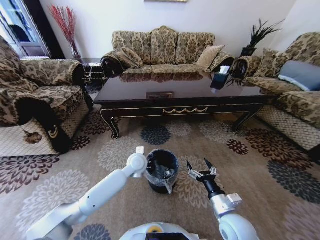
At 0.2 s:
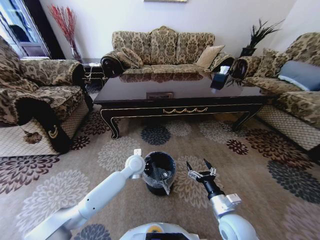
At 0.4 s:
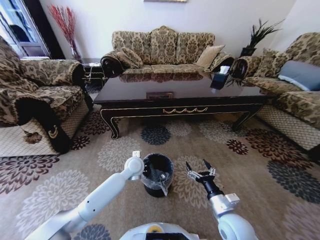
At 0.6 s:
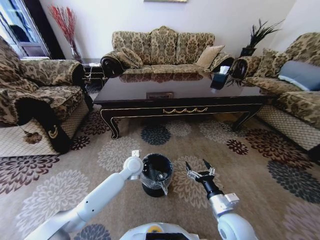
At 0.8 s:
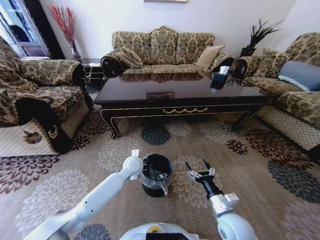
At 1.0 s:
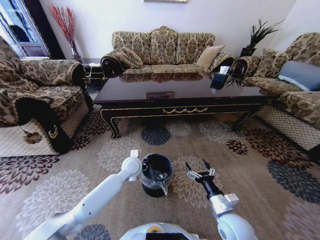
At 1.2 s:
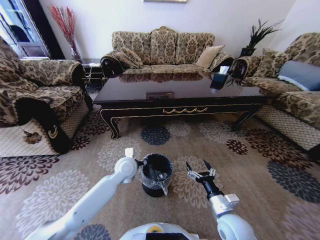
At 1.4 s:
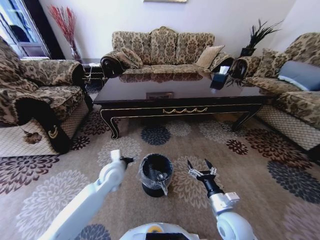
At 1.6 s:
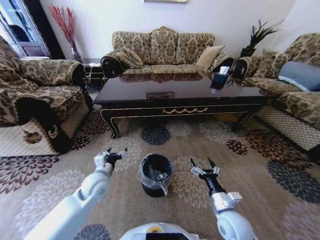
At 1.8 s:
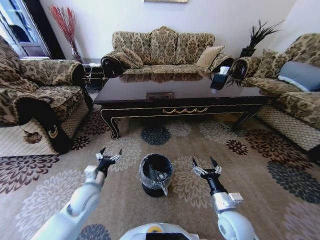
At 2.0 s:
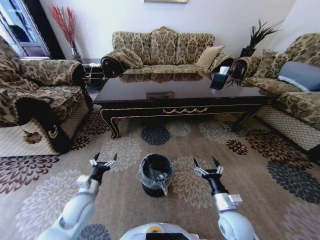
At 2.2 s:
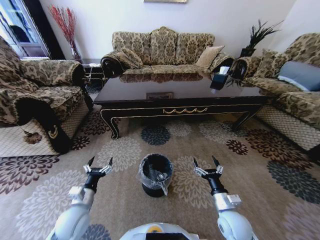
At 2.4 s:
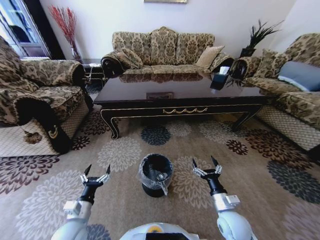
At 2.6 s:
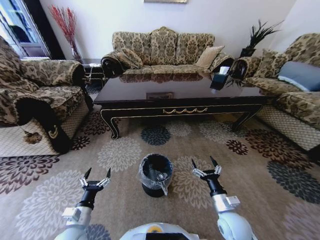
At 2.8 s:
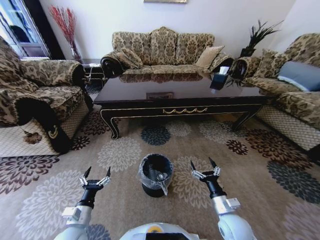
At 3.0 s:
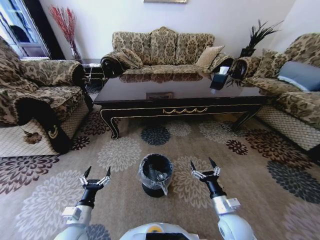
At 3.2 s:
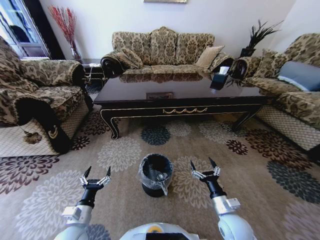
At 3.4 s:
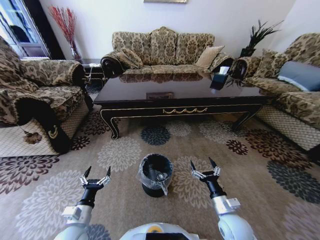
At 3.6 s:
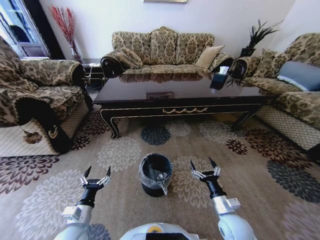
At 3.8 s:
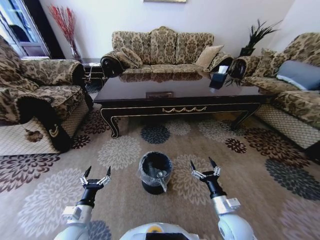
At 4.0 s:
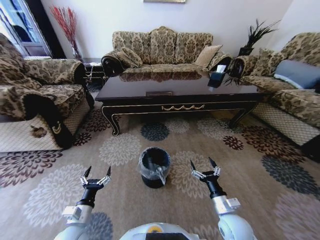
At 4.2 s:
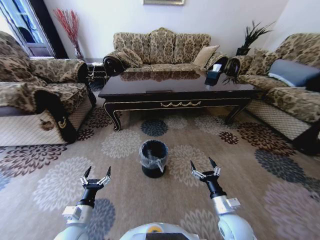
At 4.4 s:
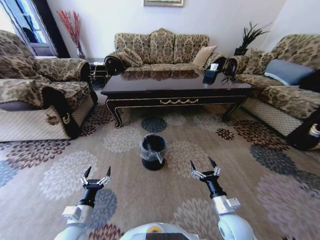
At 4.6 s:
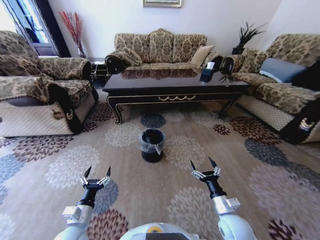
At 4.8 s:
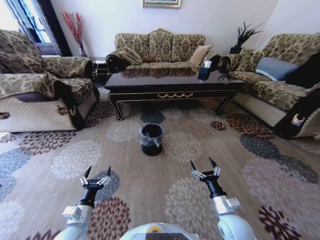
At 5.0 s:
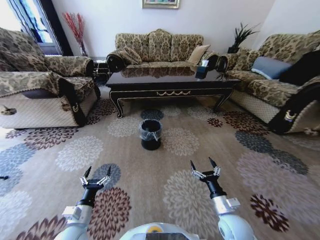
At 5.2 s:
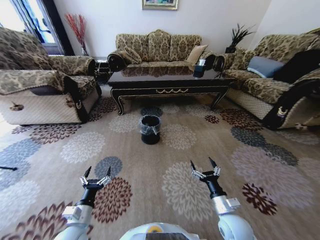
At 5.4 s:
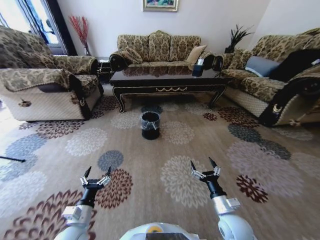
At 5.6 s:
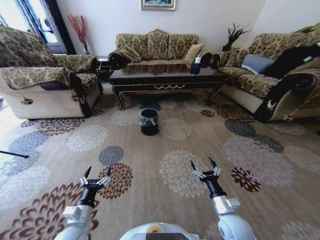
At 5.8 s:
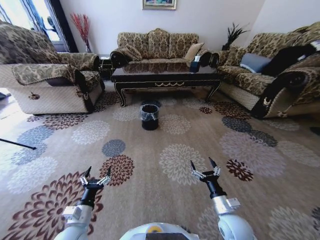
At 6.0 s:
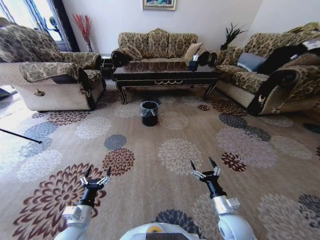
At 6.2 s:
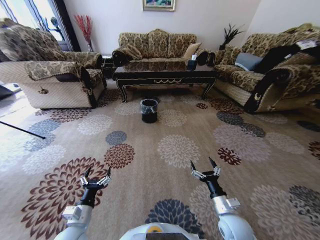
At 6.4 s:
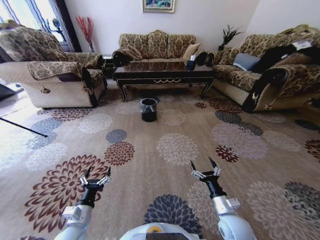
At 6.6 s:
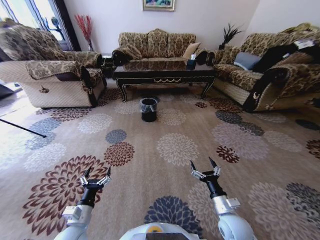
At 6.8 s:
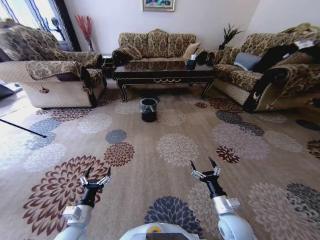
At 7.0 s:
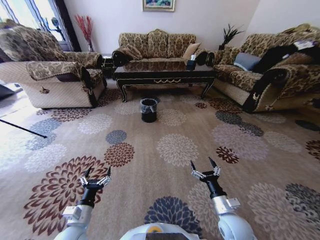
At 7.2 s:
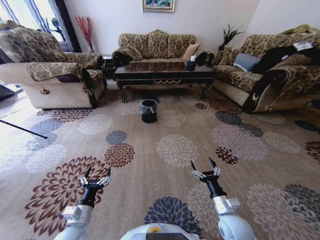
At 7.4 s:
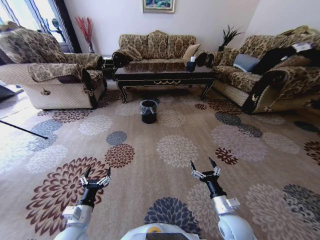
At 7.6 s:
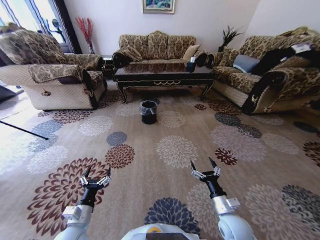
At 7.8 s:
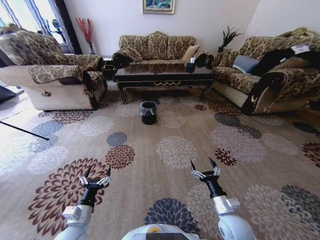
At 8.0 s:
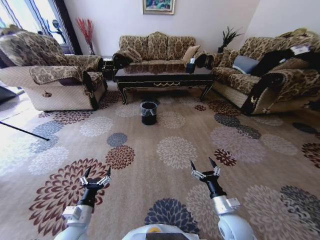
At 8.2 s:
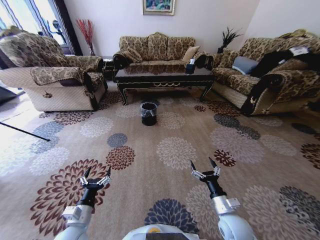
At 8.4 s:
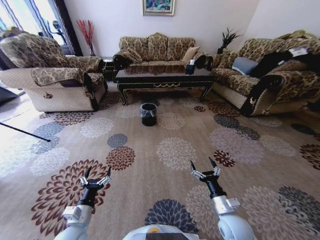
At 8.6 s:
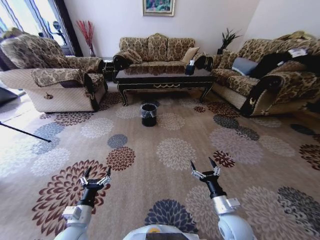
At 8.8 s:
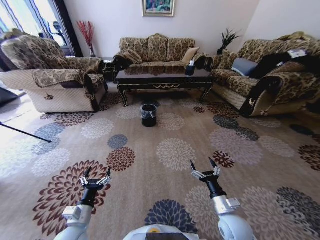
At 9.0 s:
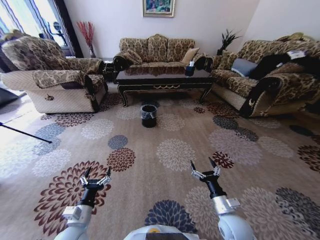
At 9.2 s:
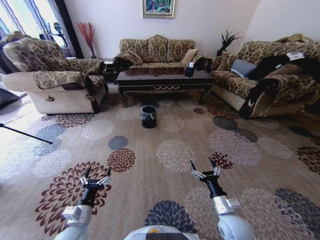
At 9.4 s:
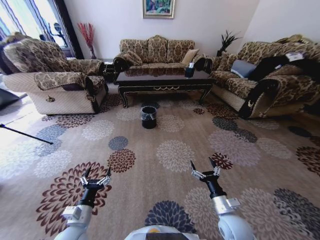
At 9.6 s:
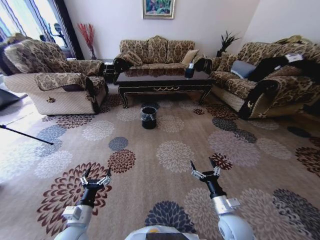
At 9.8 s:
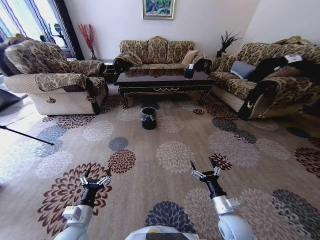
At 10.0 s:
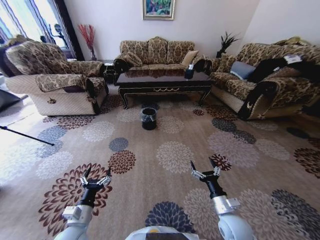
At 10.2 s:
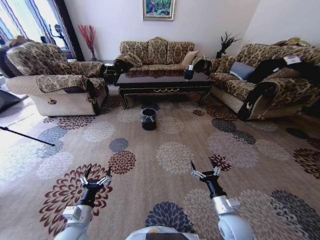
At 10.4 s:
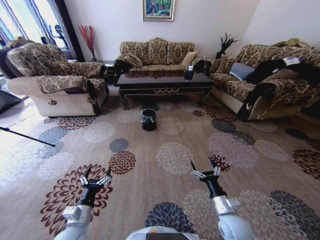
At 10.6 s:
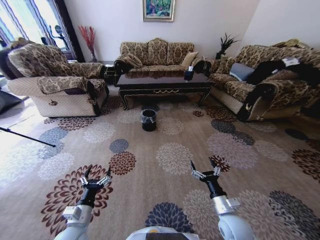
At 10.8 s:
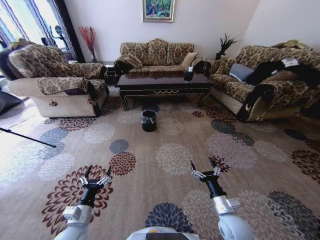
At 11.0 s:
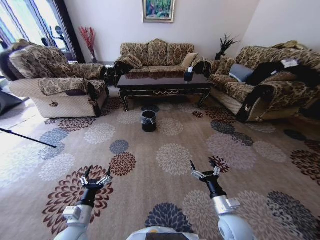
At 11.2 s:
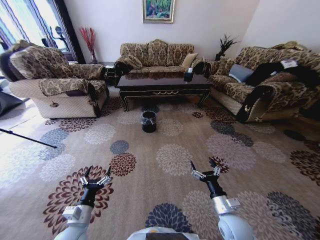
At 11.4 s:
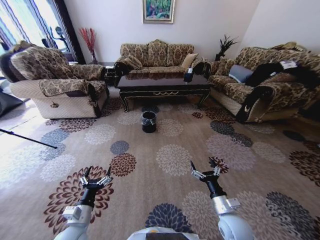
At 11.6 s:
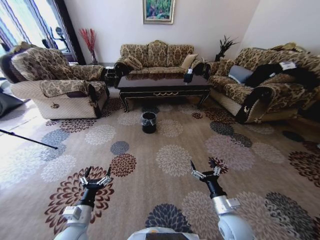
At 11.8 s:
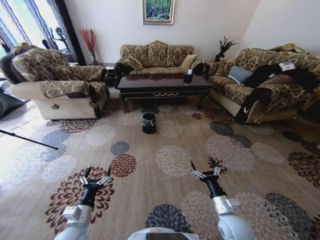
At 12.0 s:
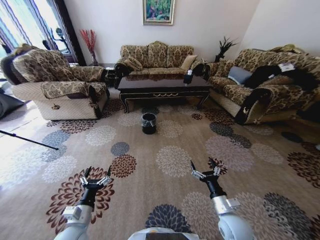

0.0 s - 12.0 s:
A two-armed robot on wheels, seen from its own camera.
Task of the whole recording: Move to the front of the table and pick up the trash from the floor, then place it into the trash bin.
0.0 s - 1.6 s: The left gripper is displaced to the left and backward by approximately 20 cm, and opens up.
1.6 s - 3.0 s: The left gripper travels backward and downward by approximately 20 cm.

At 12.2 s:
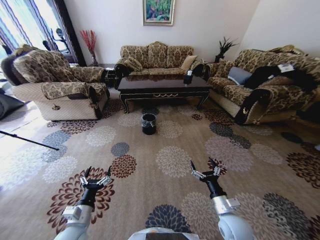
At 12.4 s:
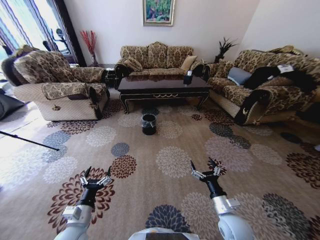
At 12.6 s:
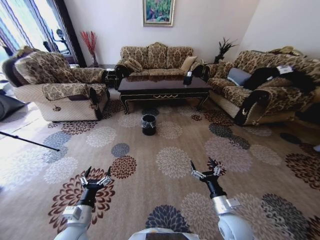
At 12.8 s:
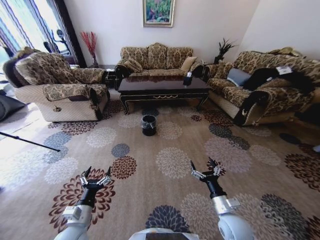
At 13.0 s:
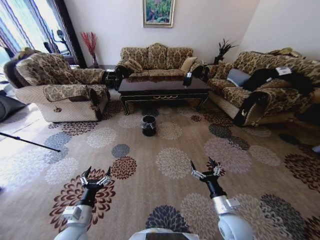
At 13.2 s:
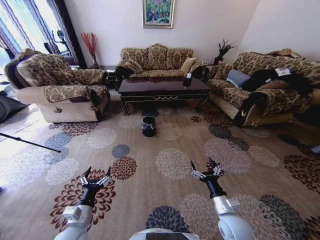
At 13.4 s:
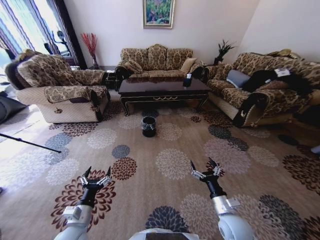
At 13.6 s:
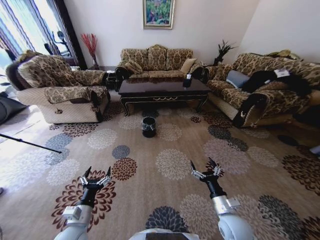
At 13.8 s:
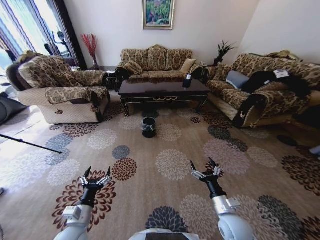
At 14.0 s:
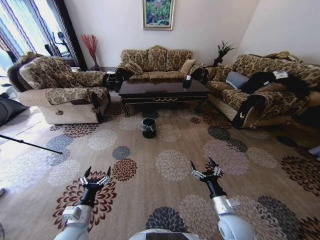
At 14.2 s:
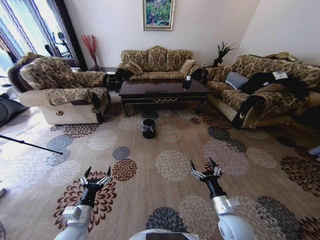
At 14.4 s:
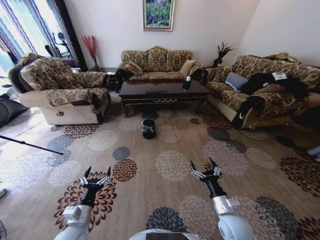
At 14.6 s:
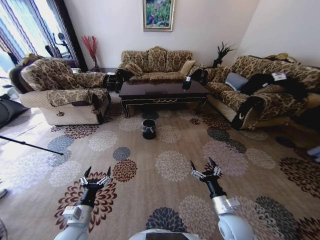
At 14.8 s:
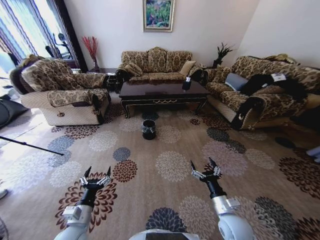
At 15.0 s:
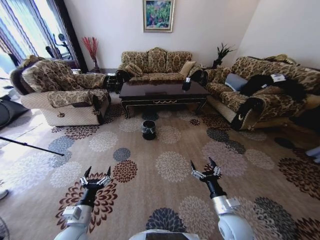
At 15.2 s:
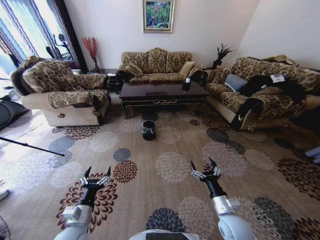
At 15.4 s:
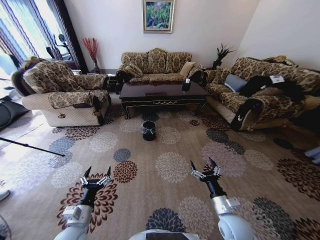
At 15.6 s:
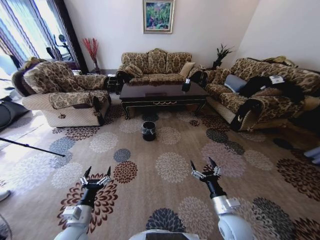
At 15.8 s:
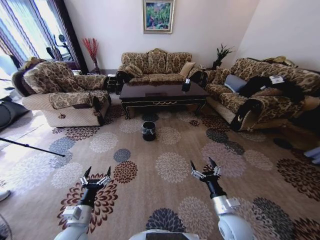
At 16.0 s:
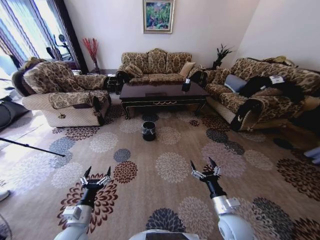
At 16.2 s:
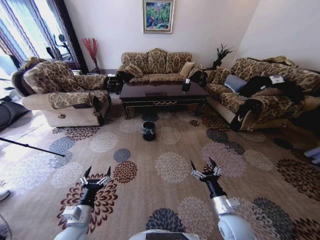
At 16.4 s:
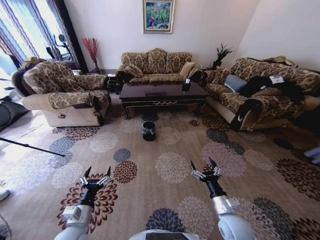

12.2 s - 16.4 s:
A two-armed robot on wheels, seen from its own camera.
Task of the whole recording: Move to the front of the table and pick up the trash from the floor, then place it into the trash bin.
13.6 s - 16.4 s: The two grippers keep their place.
